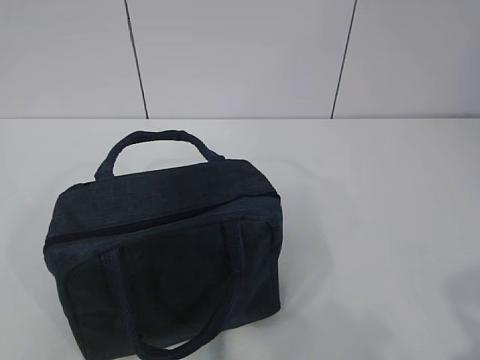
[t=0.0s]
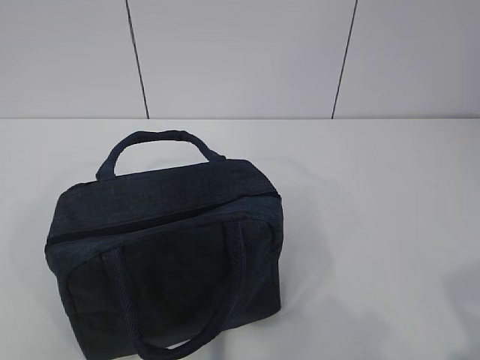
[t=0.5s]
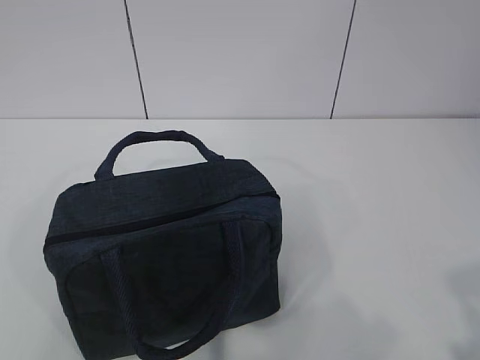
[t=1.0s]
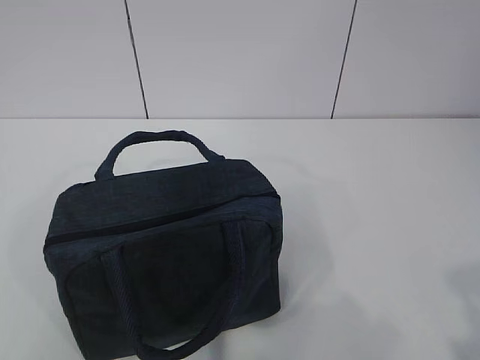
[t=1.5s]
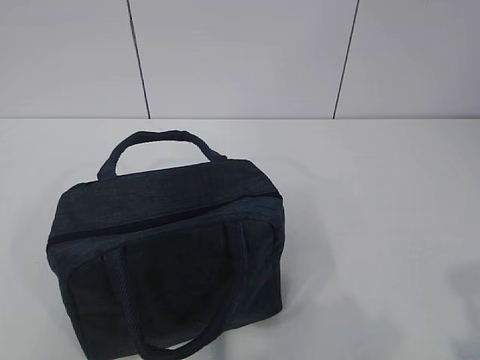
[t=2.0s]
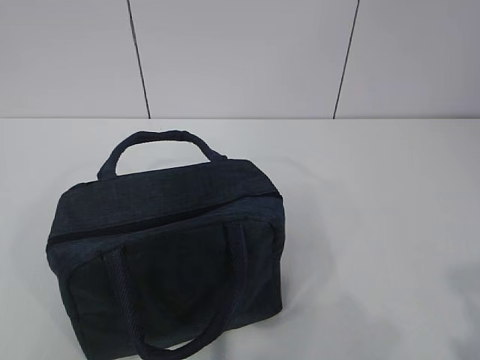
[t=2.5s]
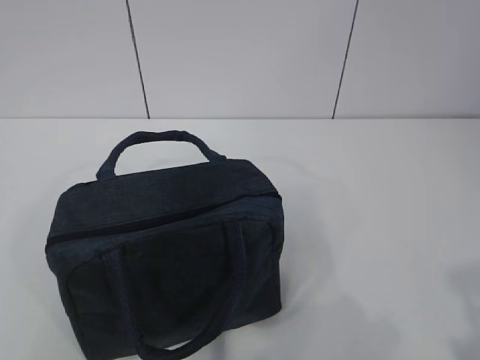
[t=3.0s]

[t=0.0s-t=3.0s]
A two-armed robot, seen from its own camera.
t=1.5s to t=3.0s: Both grippers stay about where they are.
